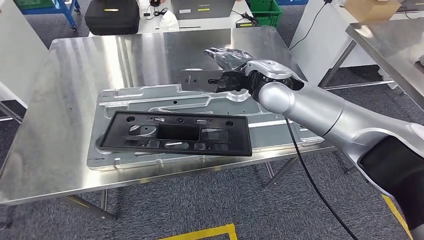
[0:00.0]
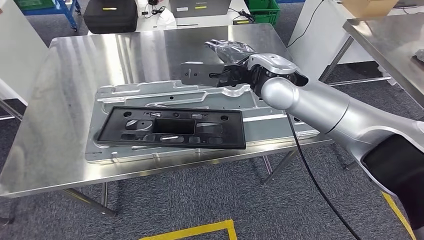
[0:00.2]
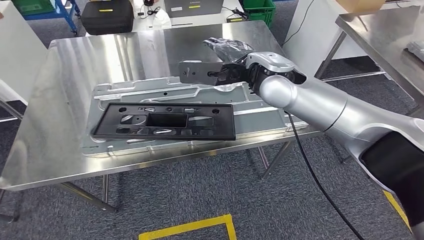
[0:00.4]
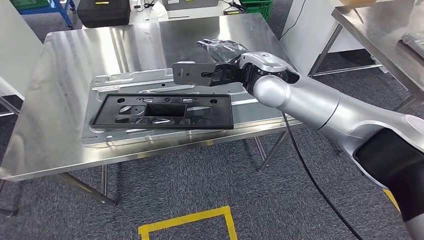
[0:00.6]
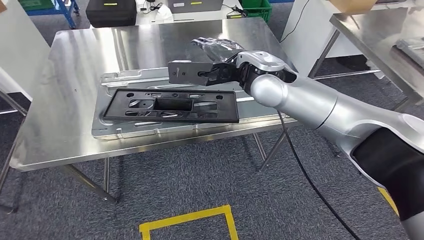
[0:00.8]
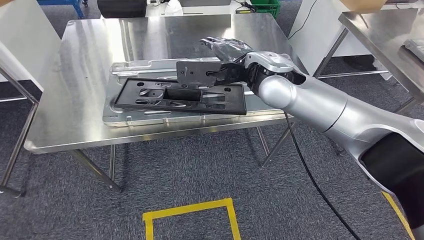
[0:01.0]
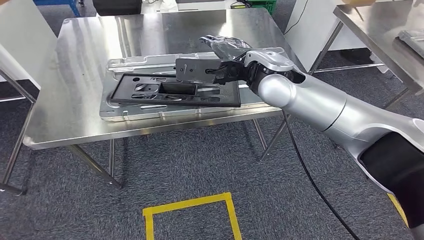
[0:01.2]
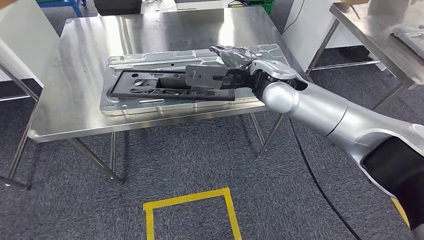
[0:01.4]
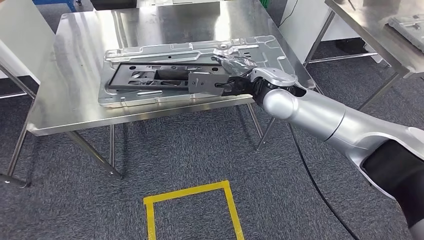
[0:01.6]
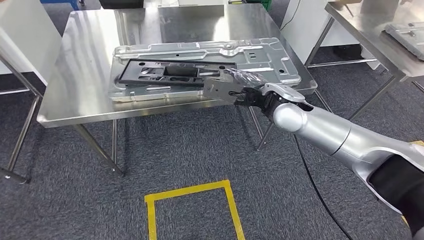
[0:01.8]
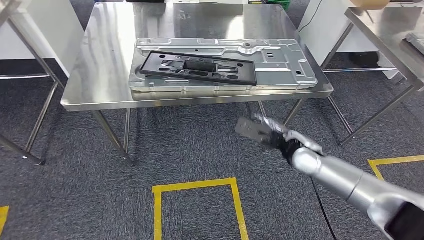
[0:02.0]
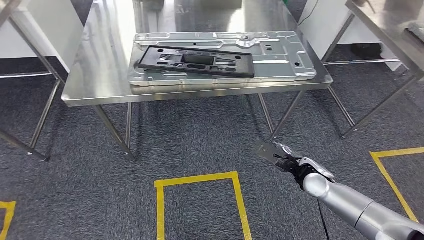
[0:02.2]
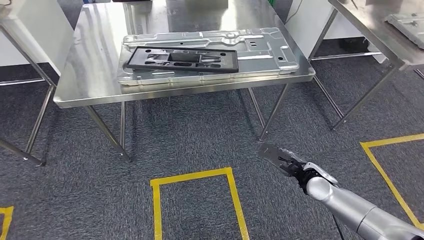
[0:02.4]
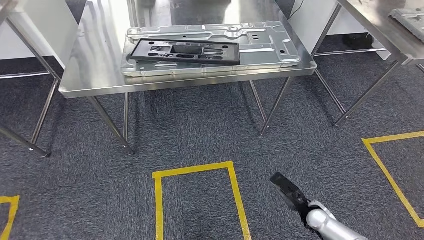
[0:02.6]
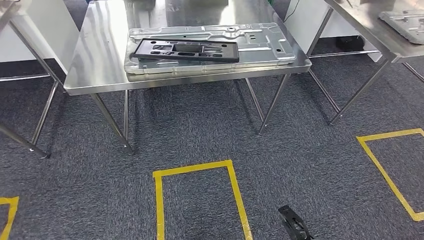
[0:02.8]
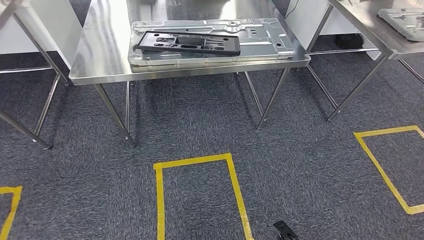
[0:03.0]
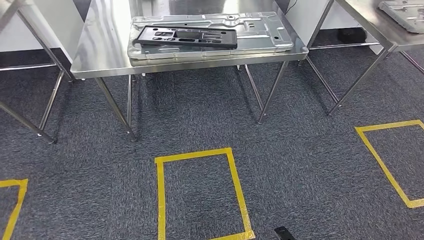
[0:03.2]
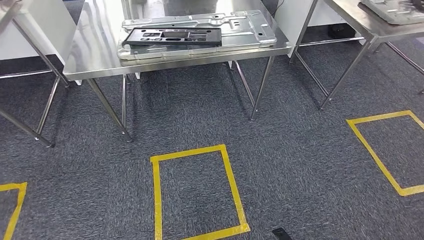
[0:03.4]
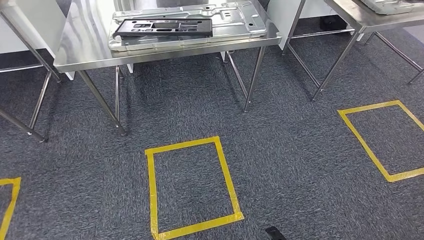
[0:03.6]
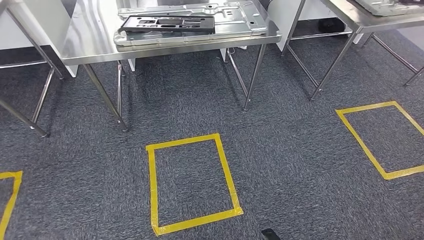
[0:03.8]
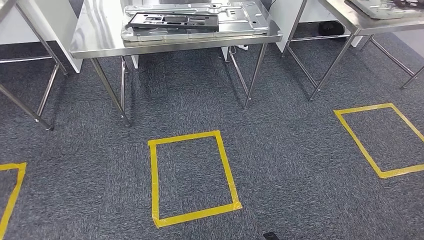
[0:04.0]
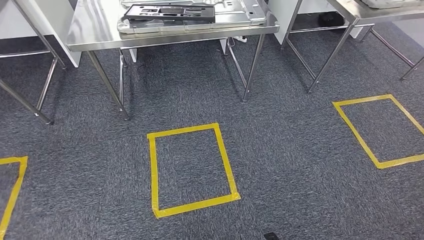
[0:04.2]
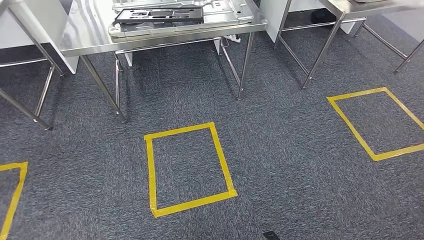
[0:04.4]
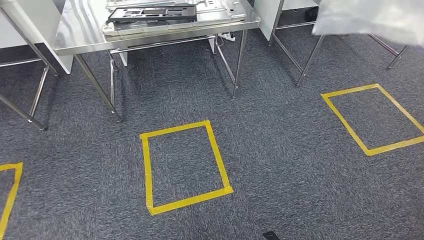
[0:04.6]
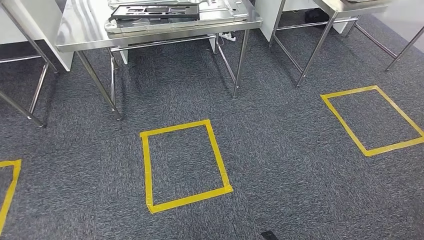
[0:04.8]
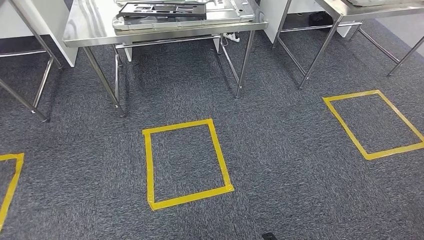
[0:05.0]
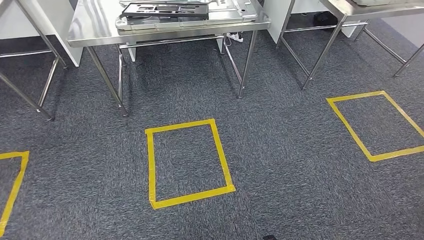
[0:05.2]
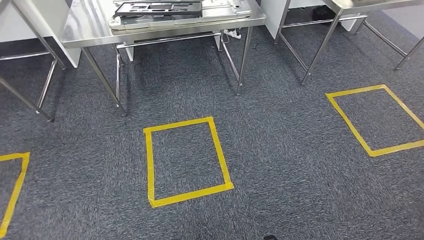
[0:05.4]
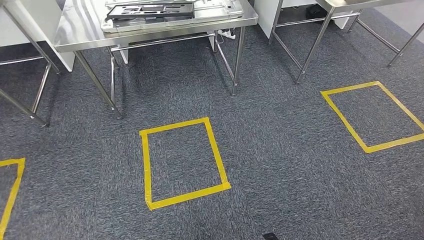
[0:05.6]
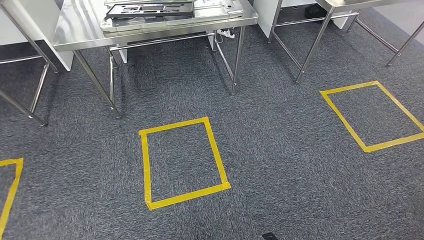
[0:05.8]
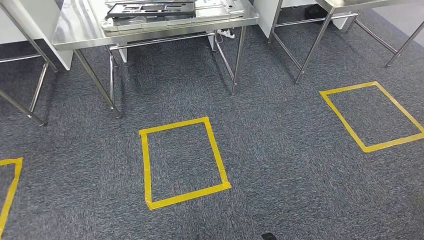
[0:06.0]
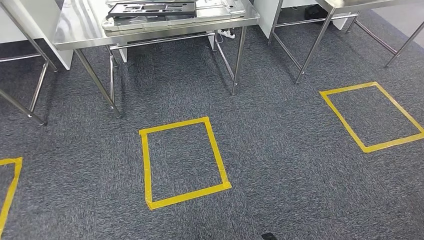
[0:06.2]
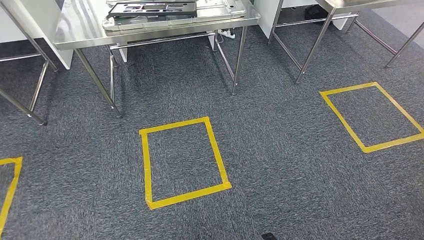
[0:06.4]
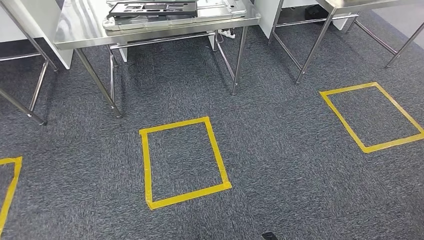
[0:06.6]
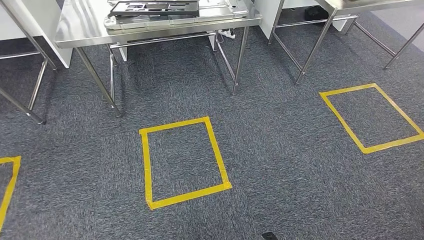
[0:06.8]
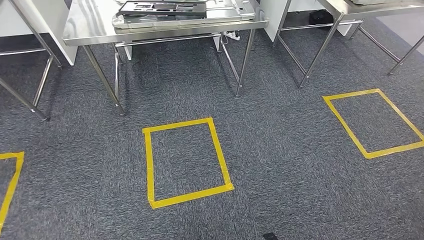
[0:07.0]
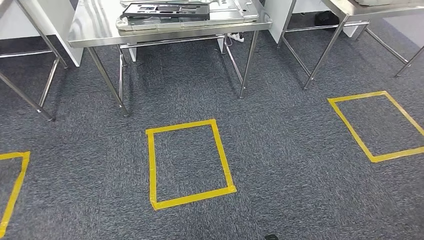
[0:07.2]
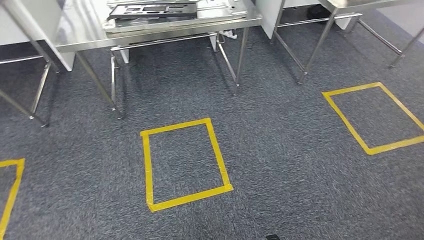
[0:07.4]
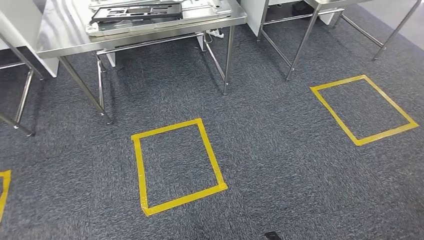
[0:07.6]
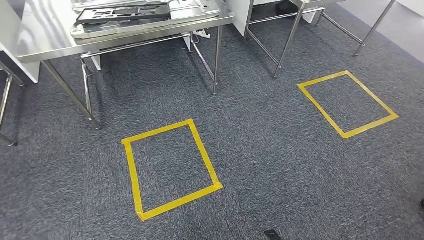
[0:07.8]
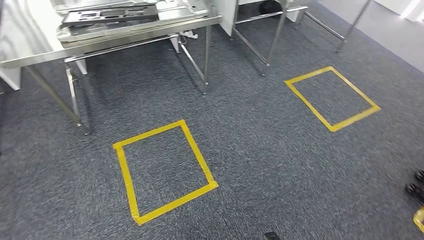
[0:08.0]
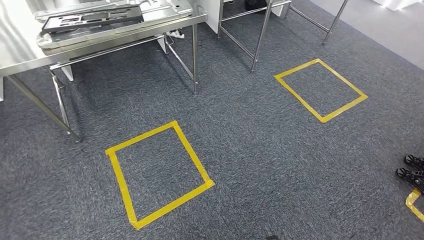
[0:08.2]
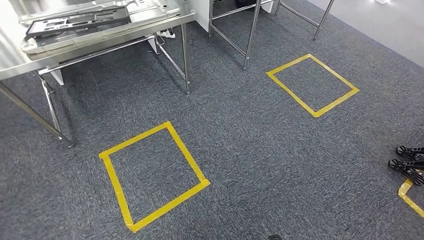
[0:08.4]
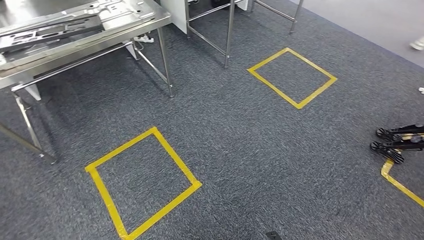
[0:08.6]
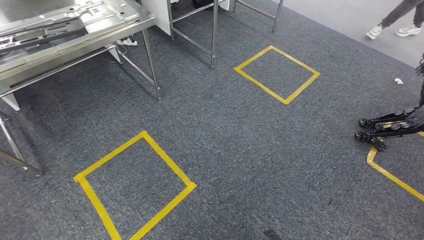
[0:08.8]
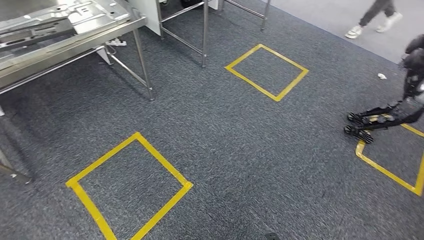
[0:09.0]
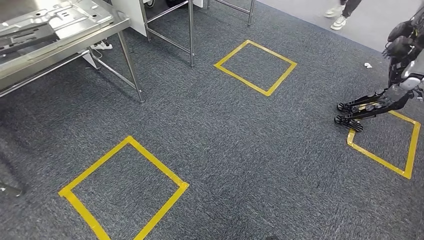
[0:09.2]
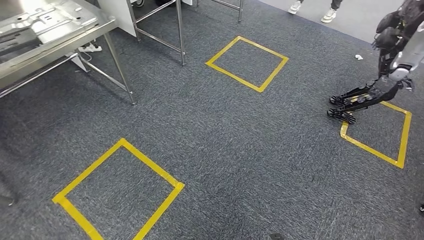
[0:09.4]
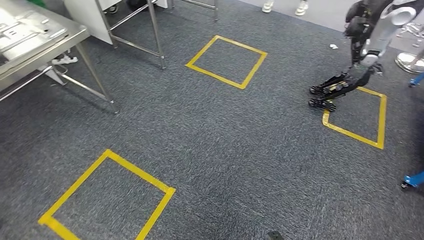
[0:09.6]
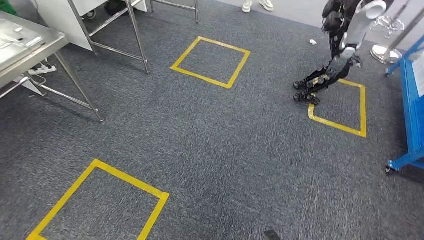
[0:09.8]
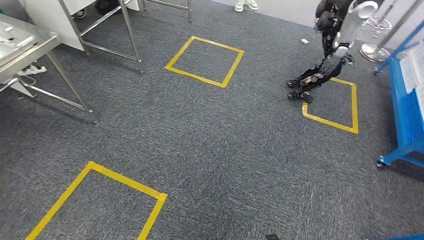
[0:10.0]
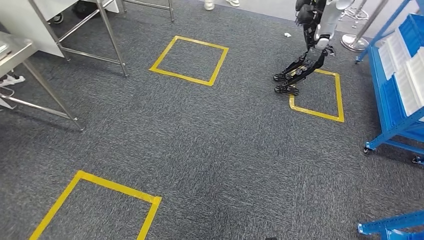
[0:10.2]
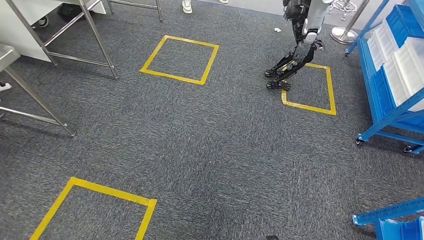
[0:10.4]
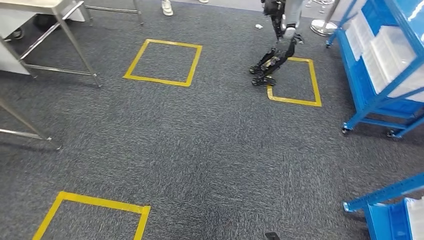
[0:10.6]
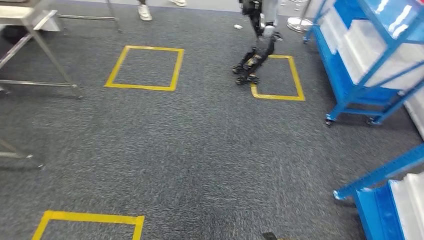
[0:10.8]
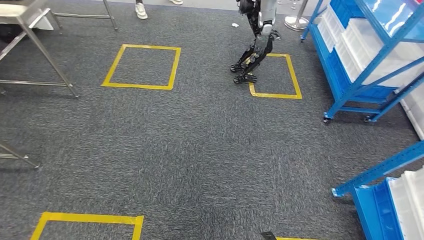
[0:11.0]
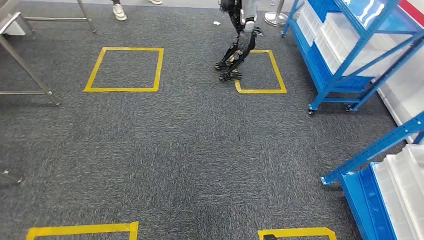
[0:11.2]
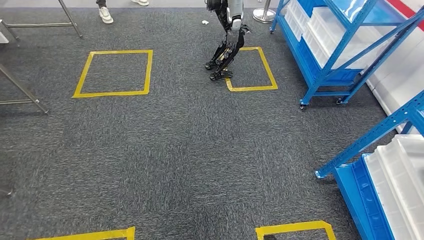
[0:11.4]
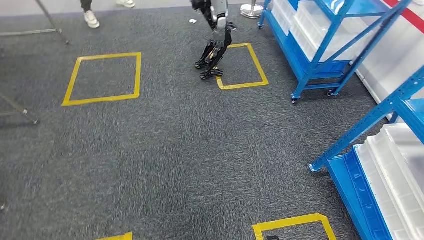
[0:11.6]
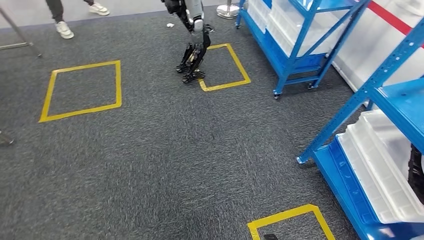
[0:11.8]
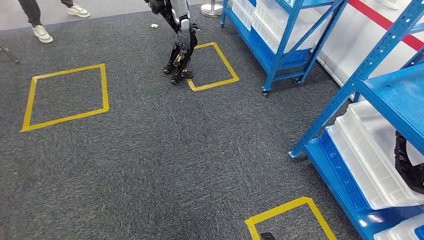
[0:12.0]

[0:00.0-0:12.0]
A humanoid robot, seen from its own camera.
0:04.4 to 0:06.0: Neither hand changes place.
0:06.0 to 0:07.6: Both hands stay put.

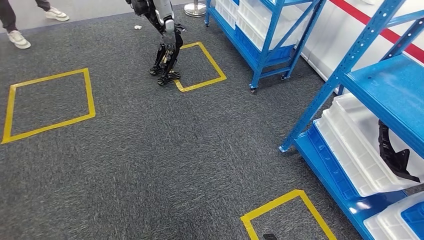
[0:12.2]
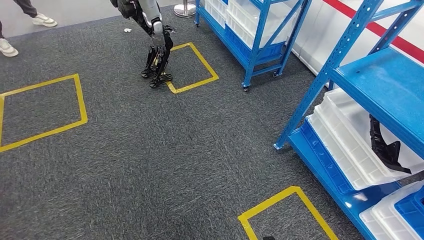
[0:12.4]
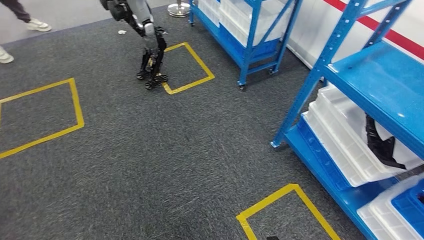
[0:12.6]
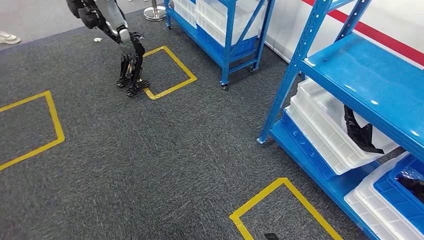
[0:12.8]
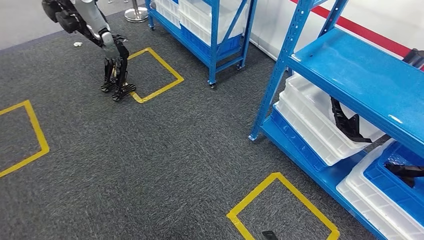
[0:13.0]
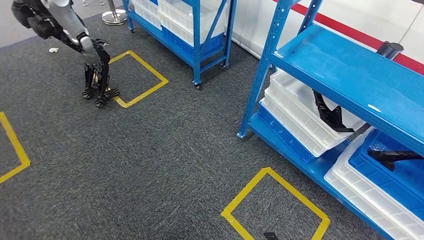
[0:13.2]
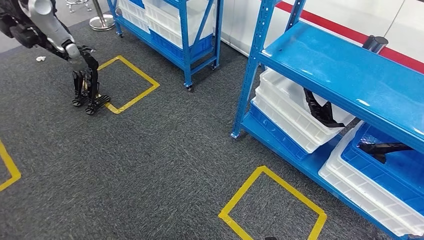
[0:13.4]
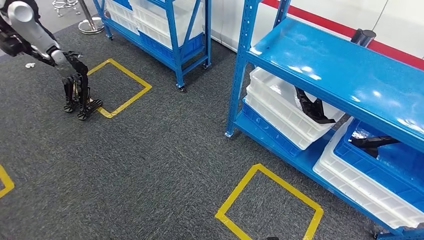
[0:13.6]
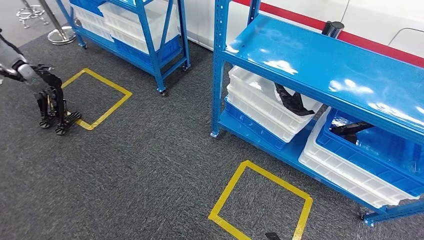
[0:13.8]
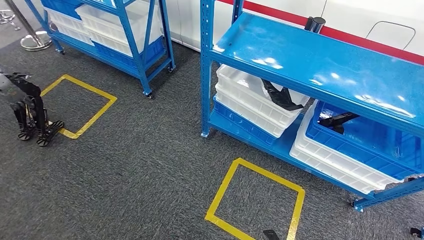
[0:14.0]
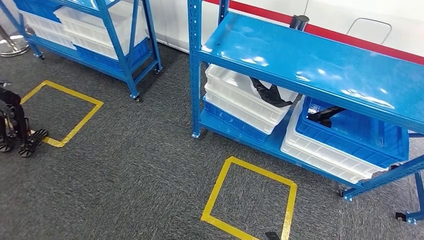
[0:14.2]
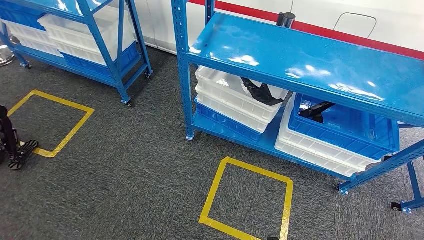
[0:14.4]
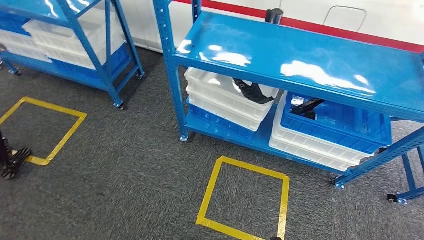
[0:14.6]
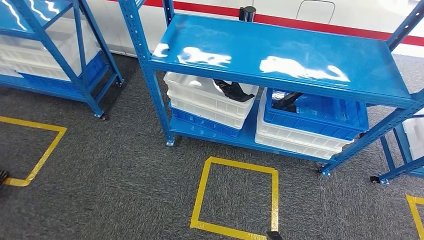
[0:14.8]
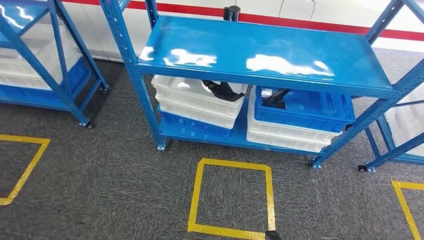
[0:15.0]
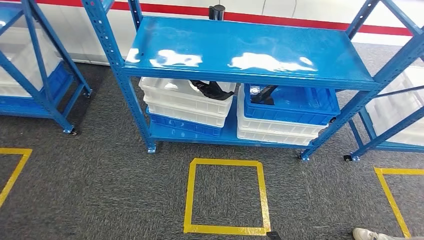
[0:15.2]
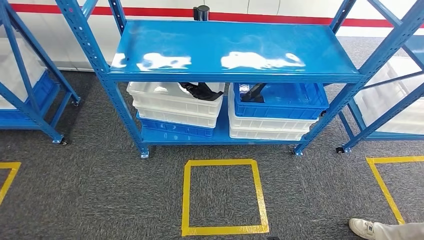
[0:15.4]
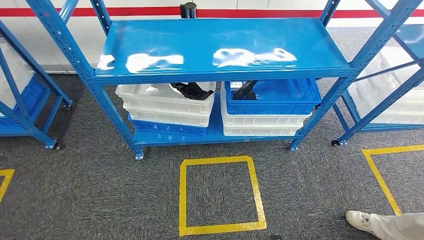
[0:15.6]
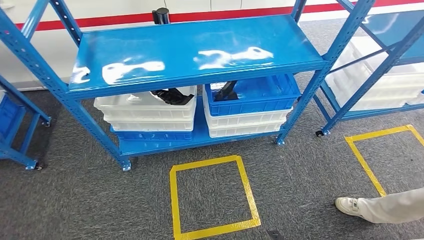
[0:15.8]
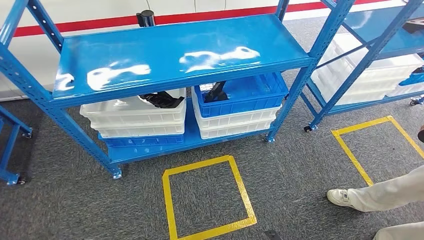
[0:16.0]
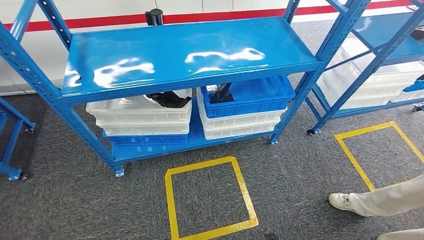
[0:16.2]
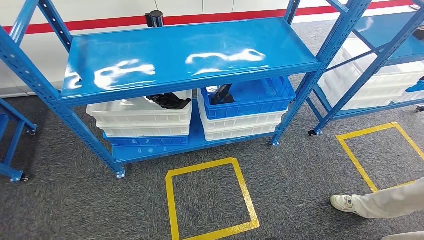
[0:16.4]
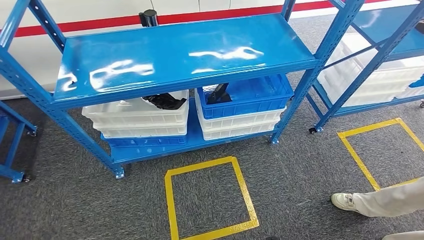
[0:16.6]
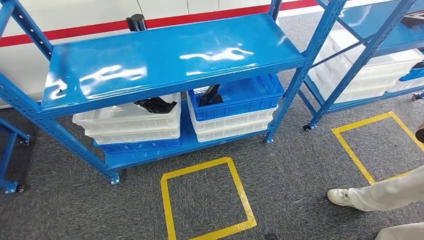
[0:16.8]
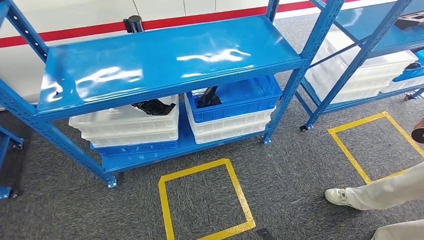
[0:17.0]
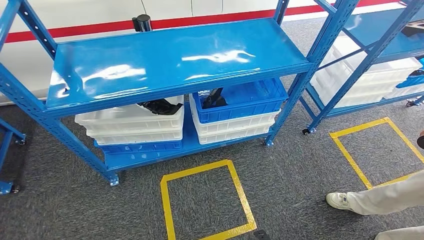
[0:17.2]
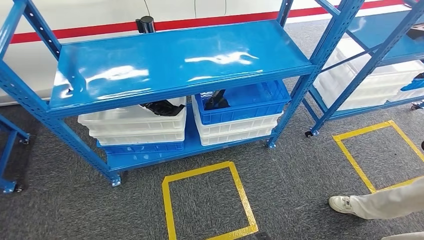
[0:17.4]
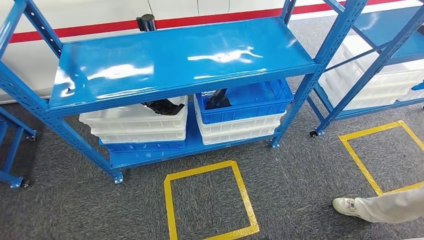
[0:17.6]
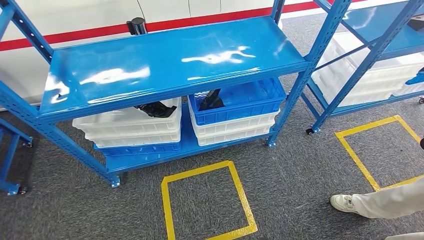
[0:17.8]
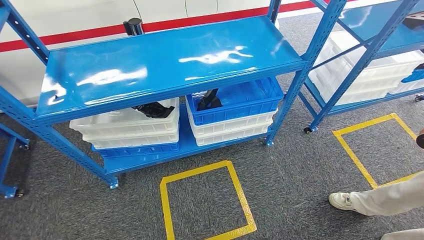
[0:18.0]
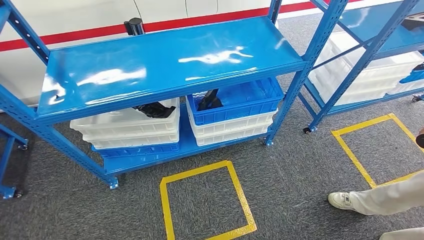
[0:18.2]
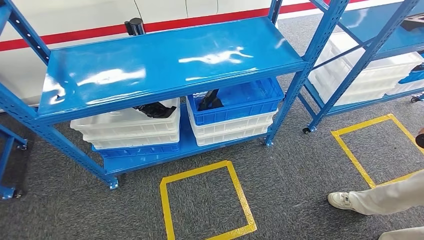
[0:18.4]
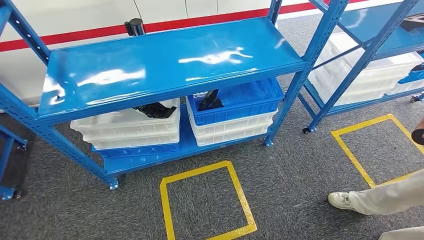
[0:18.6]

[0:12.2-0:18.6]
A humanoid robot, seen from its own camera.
Step, 0:12.2 to 0:18.4: Move to the initial position of the shelf.
